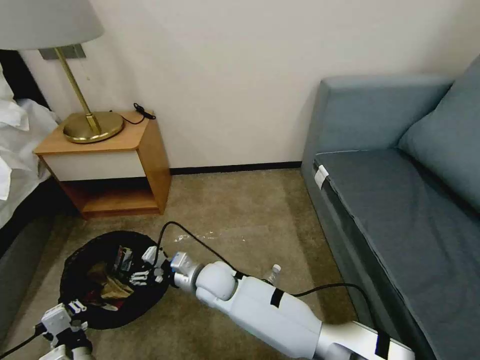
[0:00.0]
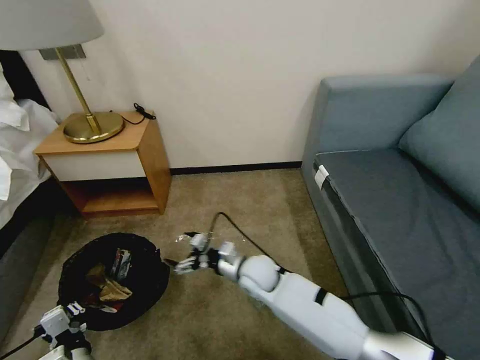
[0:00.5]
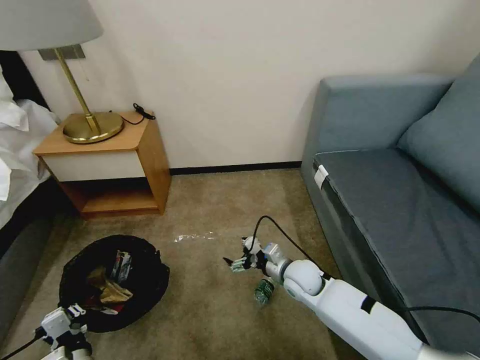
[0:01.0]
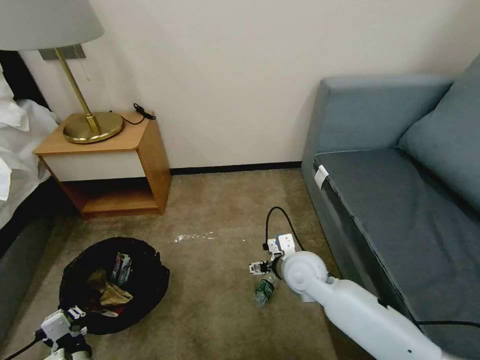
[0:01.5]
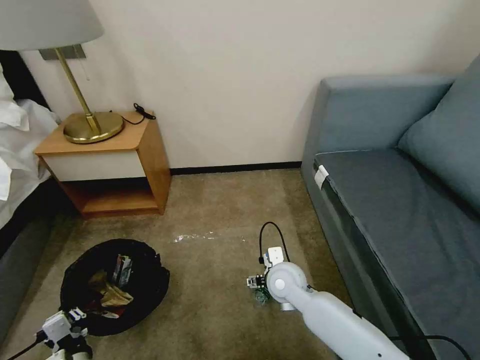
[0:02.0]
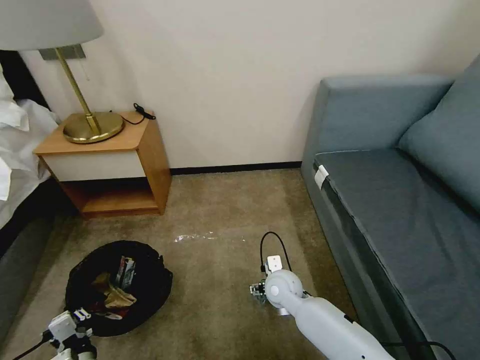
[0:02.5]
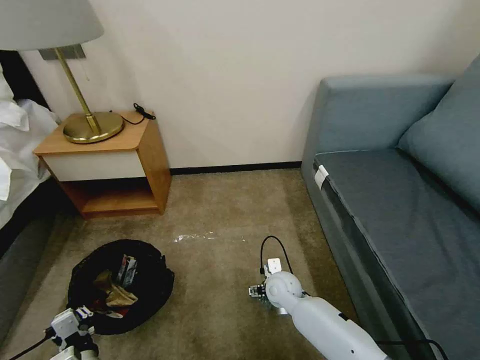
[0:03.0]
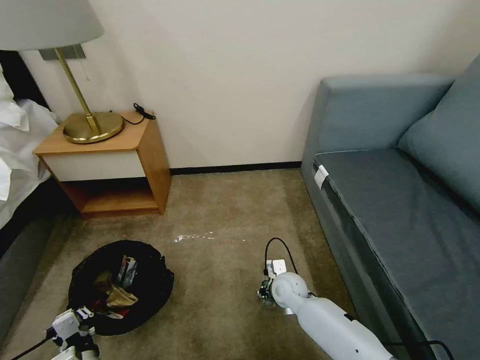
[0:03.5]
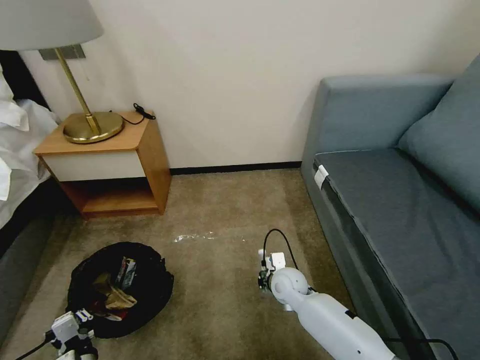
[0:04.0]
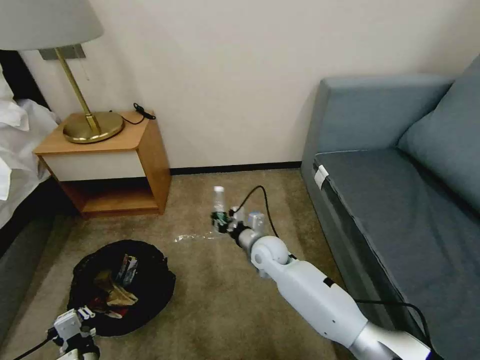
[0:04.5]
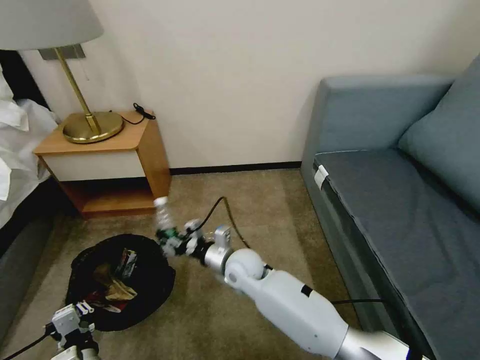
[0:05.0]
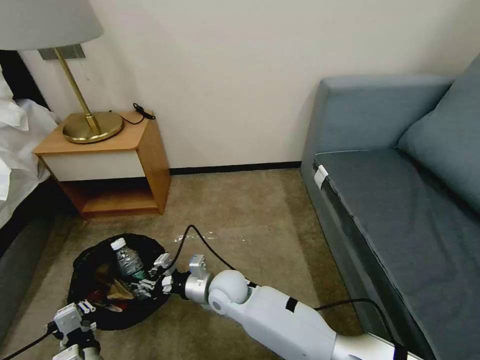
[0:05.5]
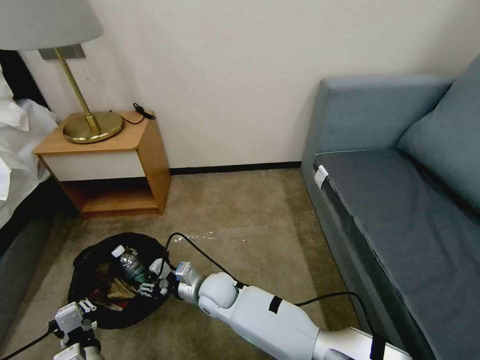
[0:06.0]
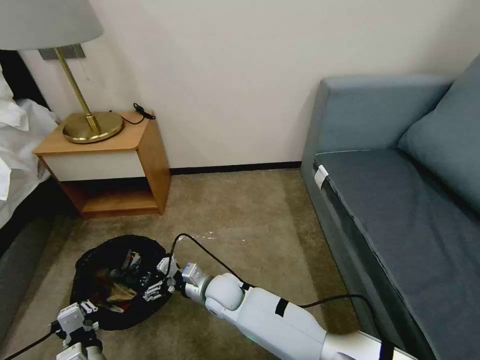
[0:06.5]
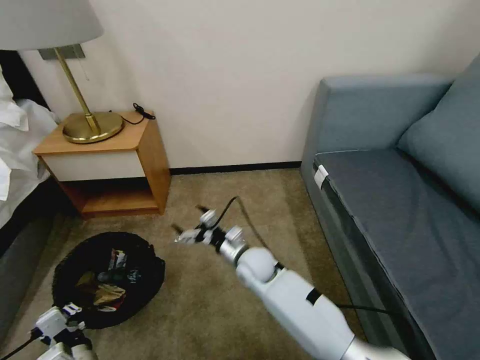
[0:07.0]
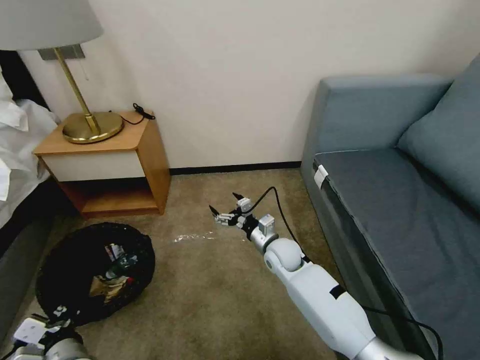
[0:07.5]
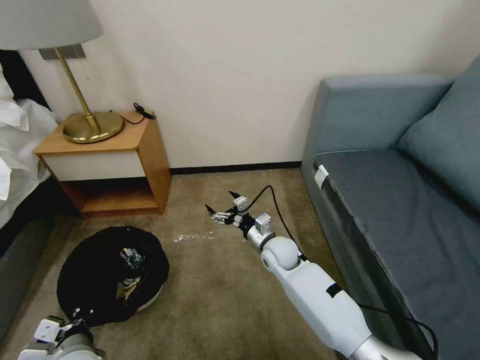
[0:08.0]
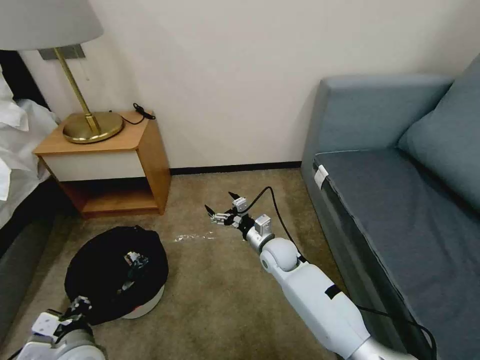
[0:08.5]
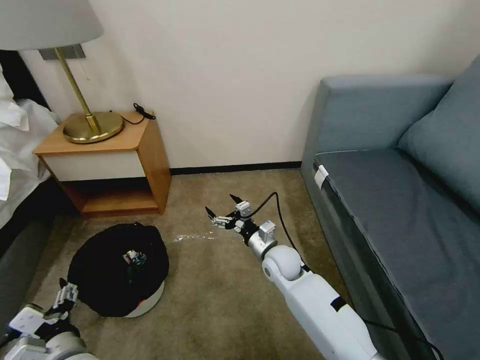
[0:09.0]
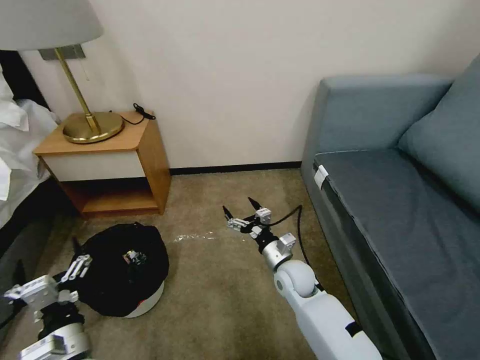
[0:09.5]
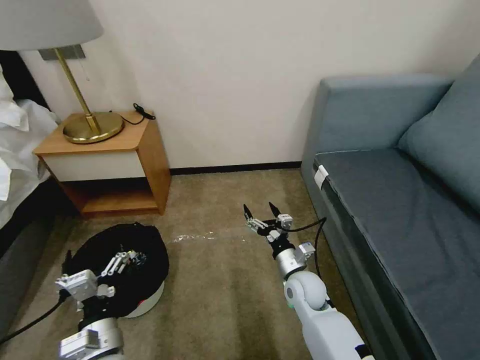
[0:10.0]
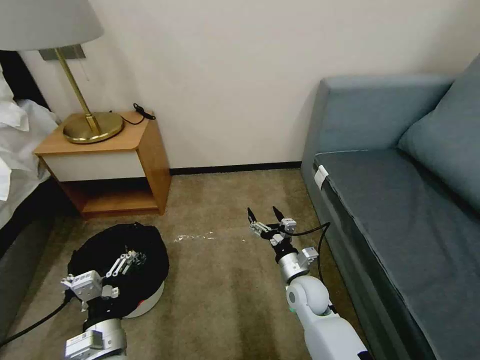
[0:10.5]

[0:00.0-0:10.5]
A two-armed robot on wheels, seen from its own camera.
Task of the whole recording: Pick up the trash bin, then pick up the garbage on the floor and place it into the trash bin.
0:00.0 to 0:02.0: The right gripper shifts some 20 cm to the right, and opens its fingers.
0:02.0 to 0:04.0: The right gripper goes about 5 cm downward, and closes its fingers.
0:04.0 to 0:06.5: The right gripper travels to the left by some 15 cm, and opens up.
0:06.5 to 0:08.5: The right gripper moves to the right and forward, some 20 cm. Meanwhile the left gripper goes approximately 5 cm upward.
0:08.5 to 0:10.5: The left gripper shifts approximately 5 cm to the right, and opens up, while the right gripper shifts about 10 cm backward and to the right.

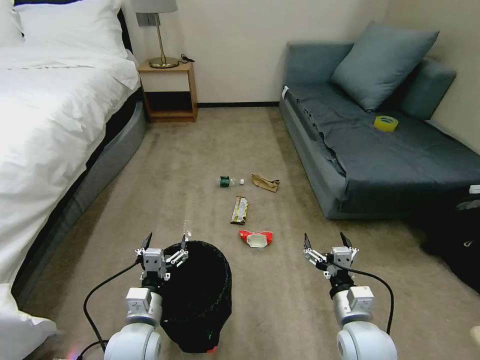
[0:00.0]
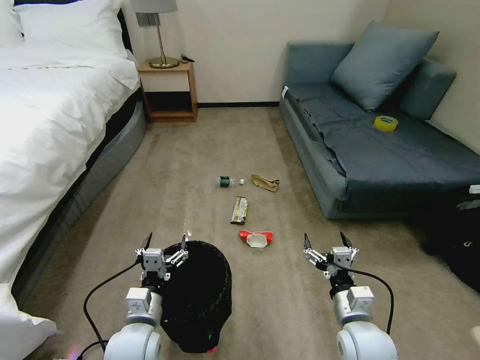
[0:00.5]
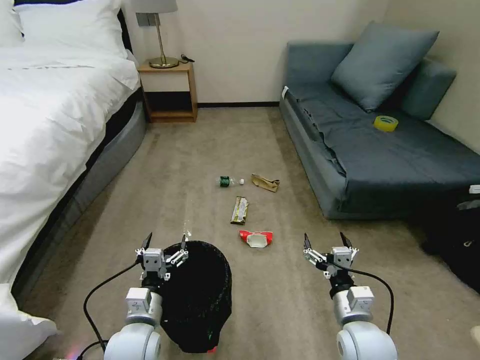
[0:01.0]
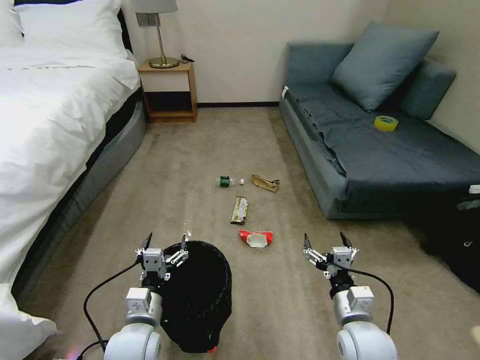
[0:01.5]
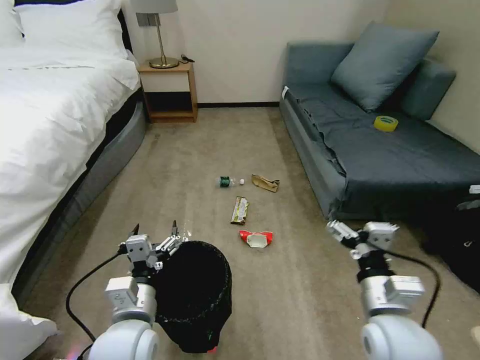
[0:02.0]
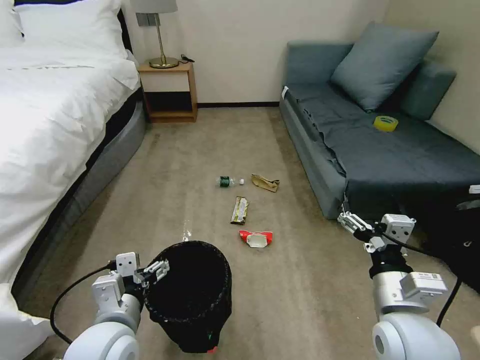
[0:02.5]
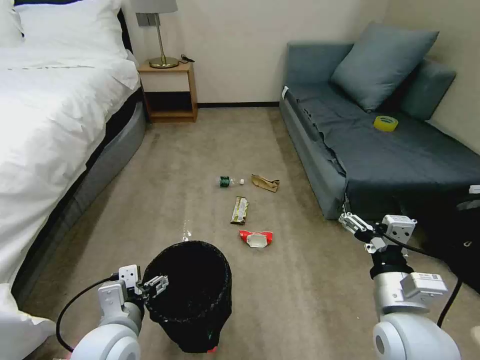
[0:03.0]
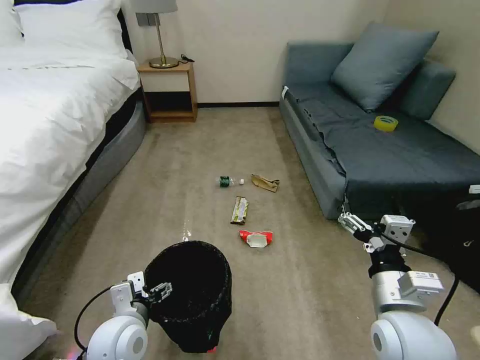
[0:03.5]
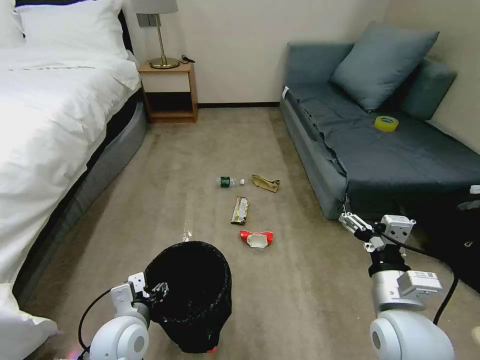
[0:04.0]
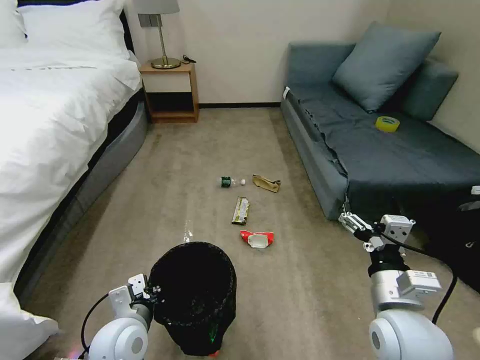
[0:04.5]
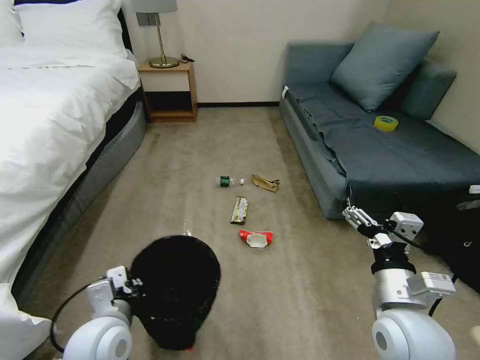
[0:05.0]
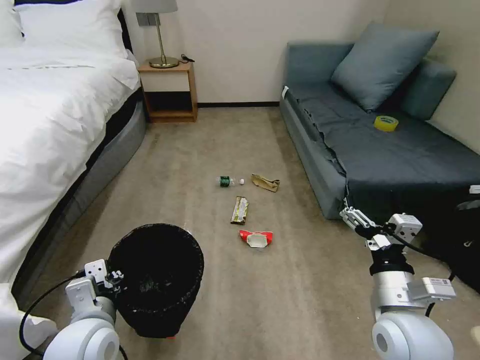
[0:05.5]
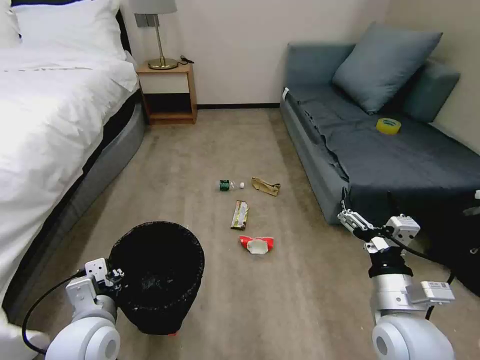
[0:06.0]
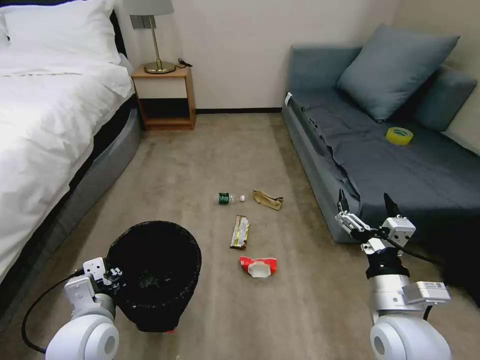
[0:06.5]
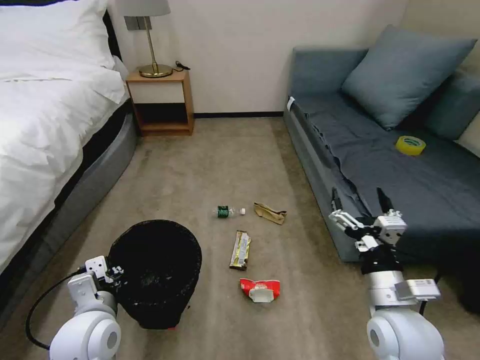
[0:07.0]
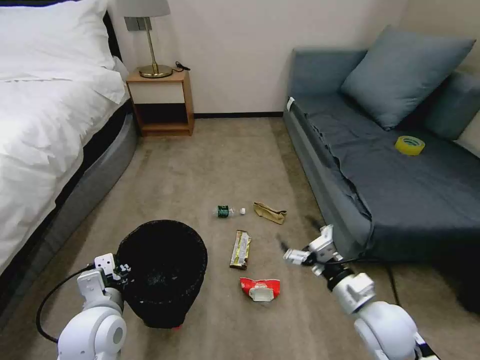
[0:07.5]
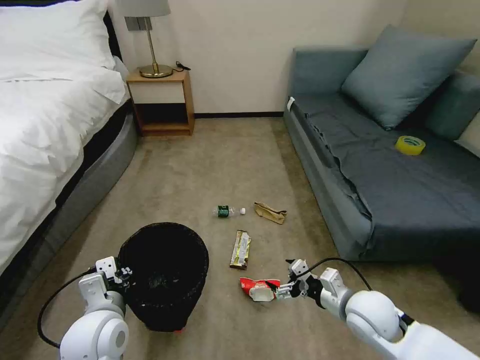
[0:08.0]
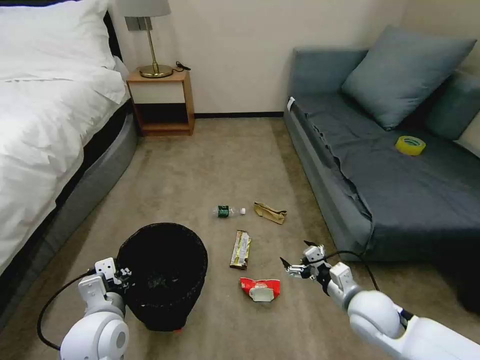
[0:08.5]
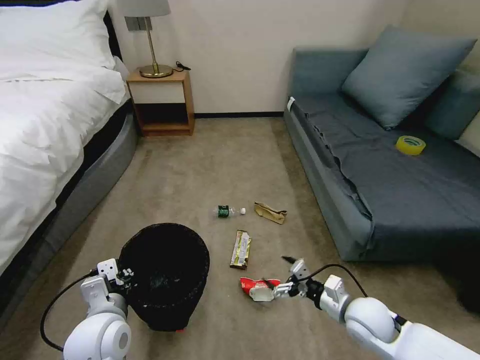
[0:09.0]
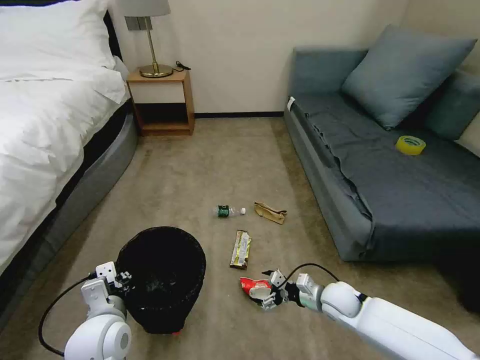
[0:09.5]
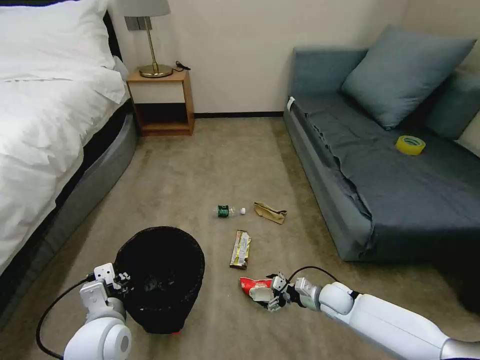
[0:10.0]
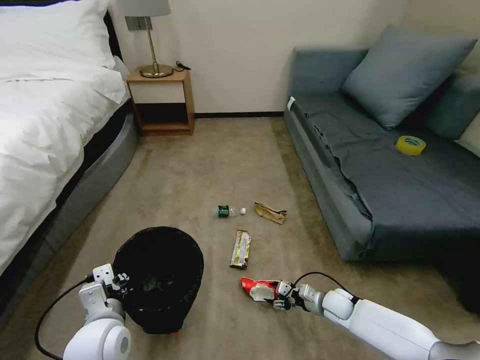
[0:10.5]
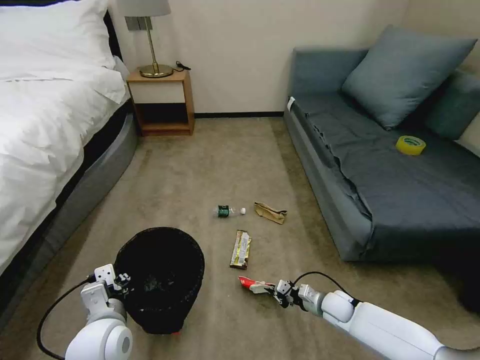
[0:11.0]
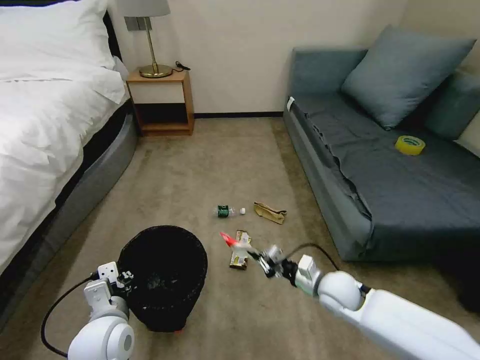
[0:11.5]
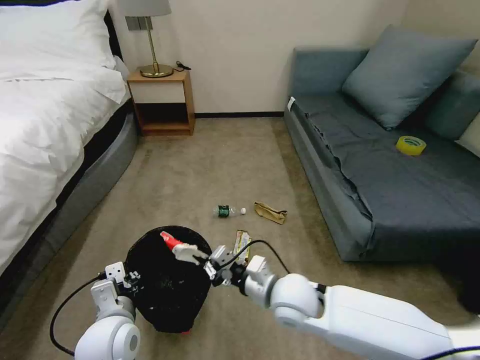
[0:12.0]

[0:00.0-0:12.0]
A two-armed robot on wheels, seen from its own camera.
Task of the whole recording: Pick up the trash bin, then pick up the garbage on the floor and place it into the trash bin.
0:02.0 to 0:04.0: The left gripper shifts about 5 cm downward, and closes.
0:04.0 to 0:06.0: The left gripper travels upward by some 5 cm, and closes up.
0:06.0 to 0:08.0: The right gripper moves downward and forward, approximately 10 cm.
0:08.0 to 0:10.0: The right gripper heads downward and forward, covering some 15 cm.
0:10.0 to 0:12.0: The right gripper is displaced upward and to the left by roughly 25 cm, and closes.

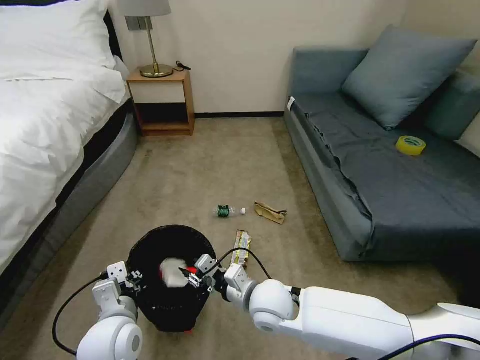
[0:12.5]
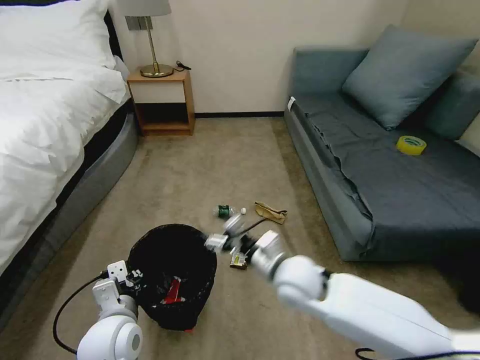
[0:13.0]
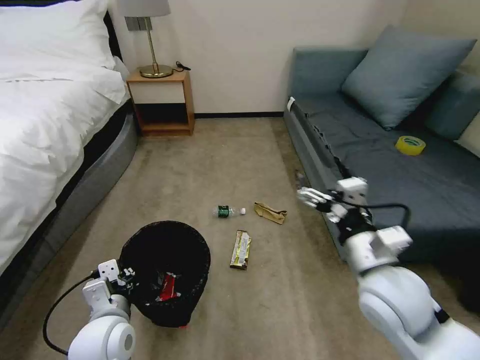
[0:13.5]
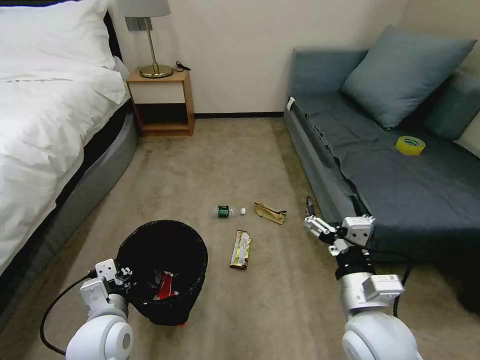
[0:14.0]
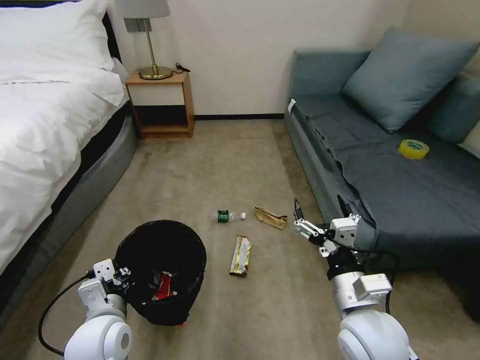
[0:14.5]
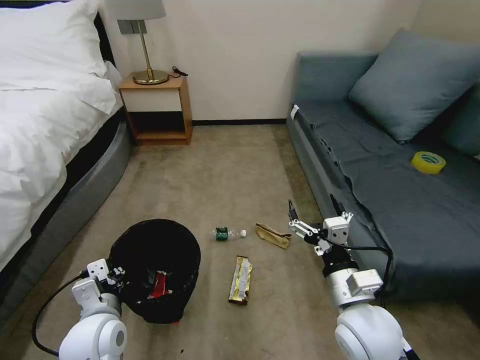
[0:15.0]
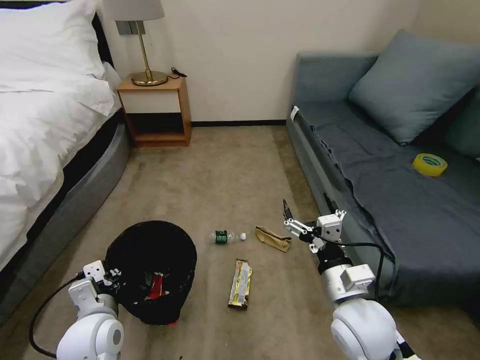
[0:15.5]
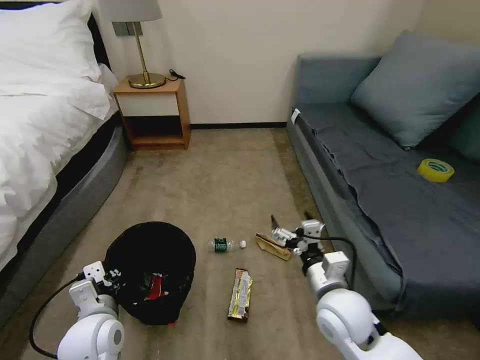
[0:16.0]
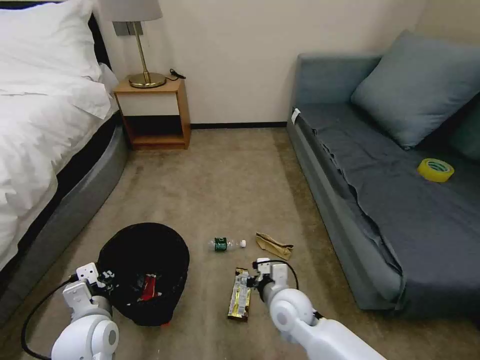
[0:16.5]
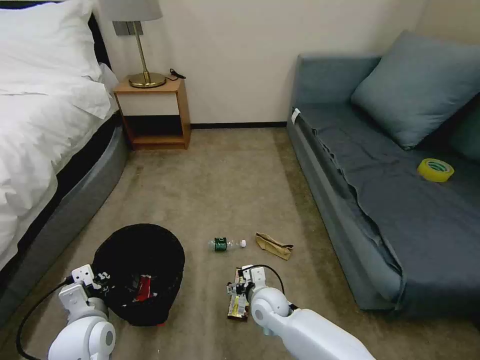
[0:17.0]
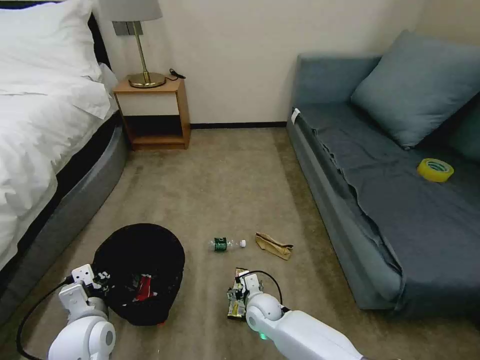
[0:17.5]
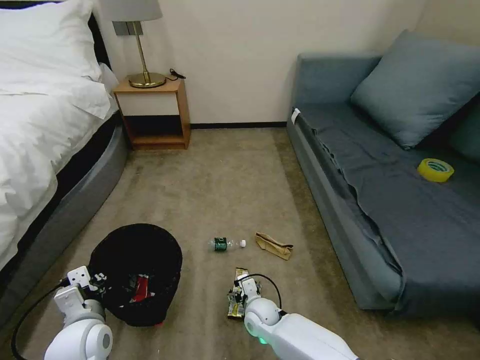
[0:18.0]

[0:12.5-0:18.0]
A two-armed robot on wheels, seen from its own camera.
Task of the whole recording: Pick up the trash bin, then pick up the garbage on the floor and place it into the trash bin.
0:12.5 to 0:14.5: The right gripper heads to the right, upward and backward, covering roughly 20 cm, and opens up.
0:14.5 to 0:16.0: The right gripper ends up roughly 5 cm from where it was.
0:16.0 to 0:18.0: The right gripper travels downward and to the left by approximately 25 cm.
